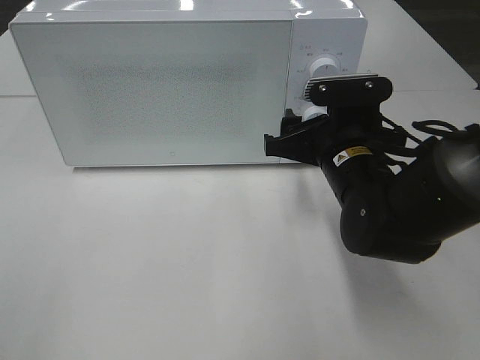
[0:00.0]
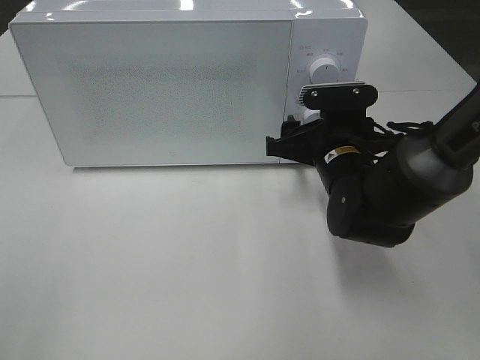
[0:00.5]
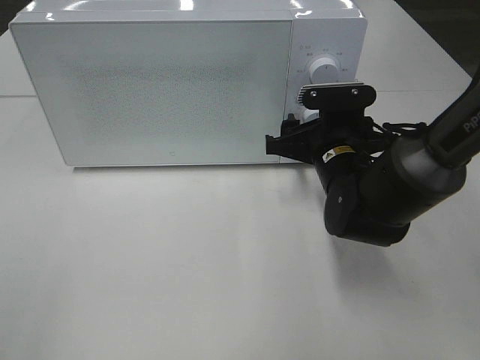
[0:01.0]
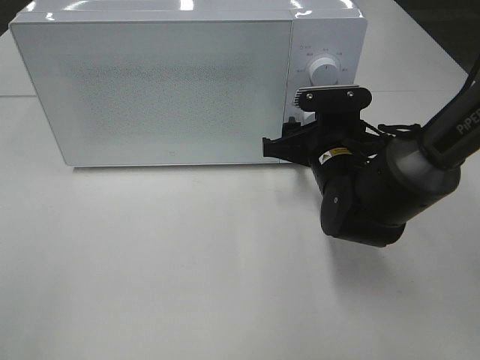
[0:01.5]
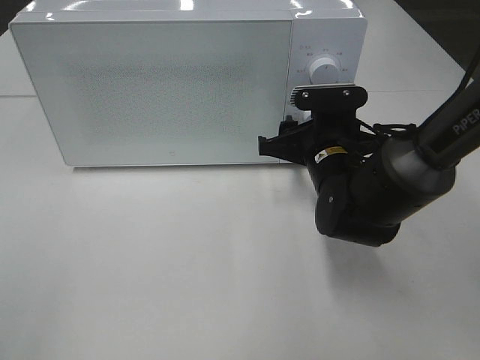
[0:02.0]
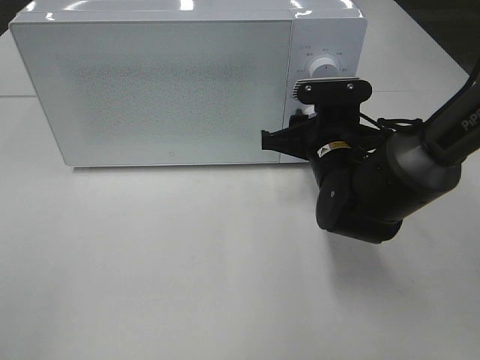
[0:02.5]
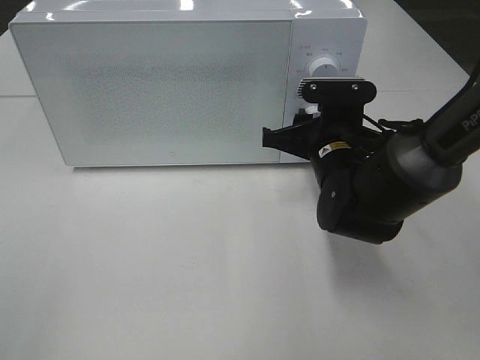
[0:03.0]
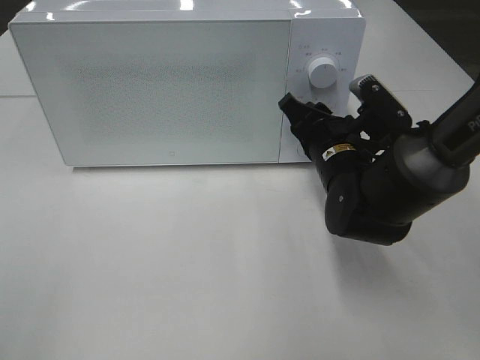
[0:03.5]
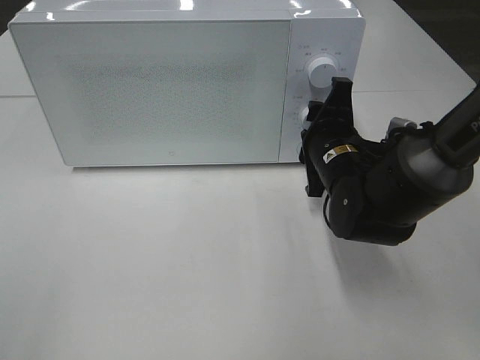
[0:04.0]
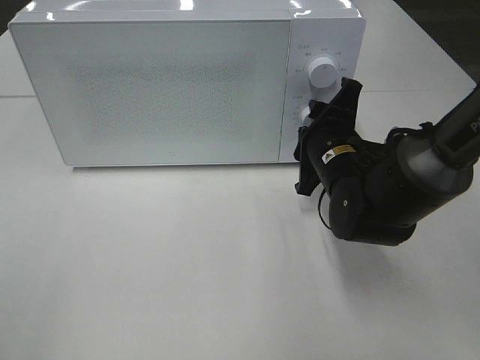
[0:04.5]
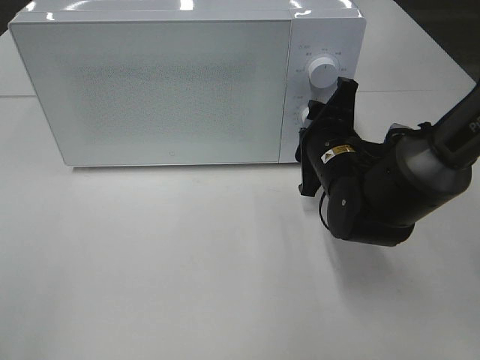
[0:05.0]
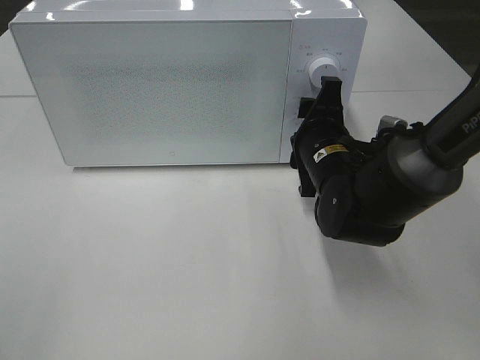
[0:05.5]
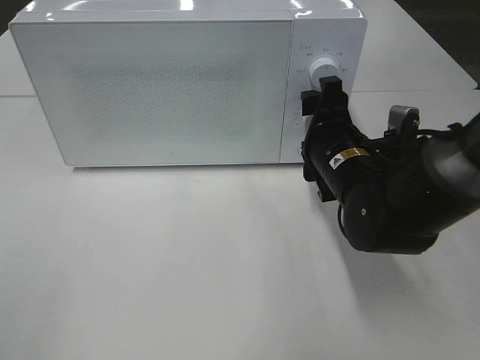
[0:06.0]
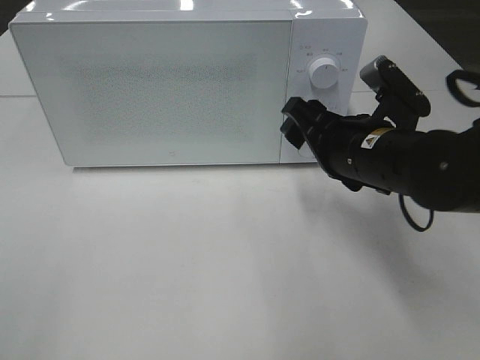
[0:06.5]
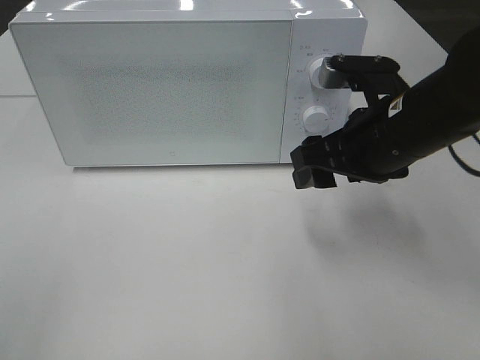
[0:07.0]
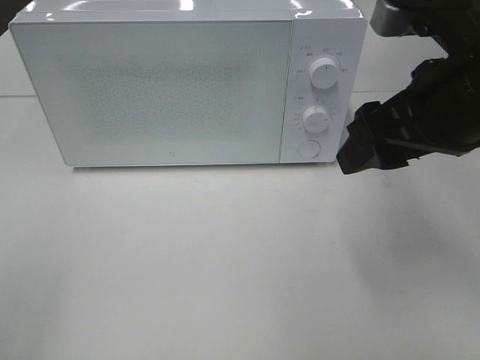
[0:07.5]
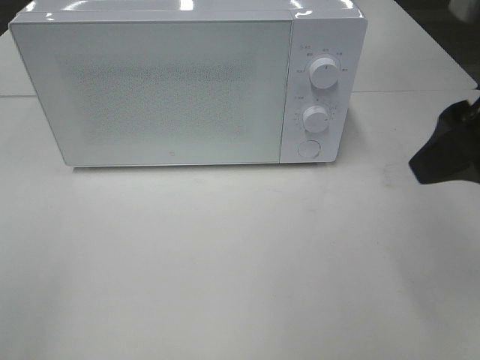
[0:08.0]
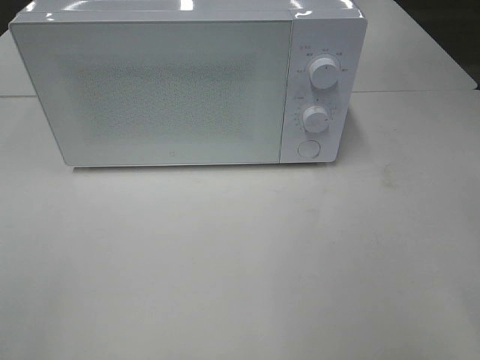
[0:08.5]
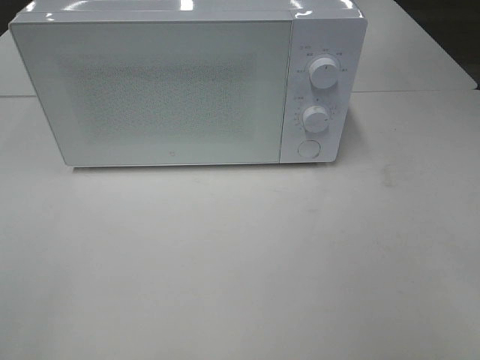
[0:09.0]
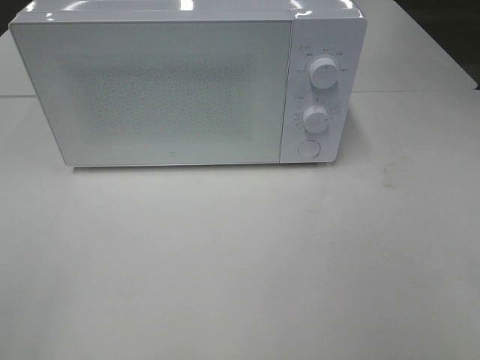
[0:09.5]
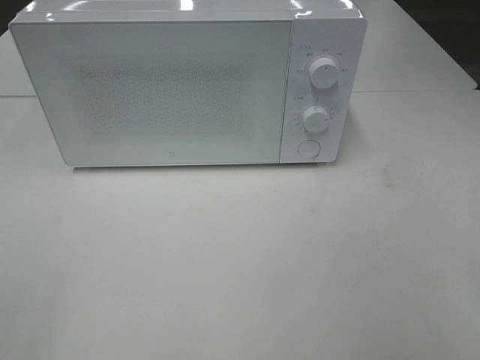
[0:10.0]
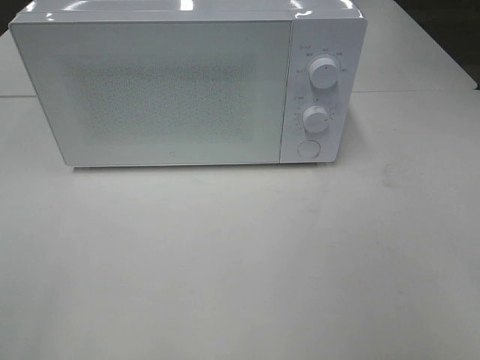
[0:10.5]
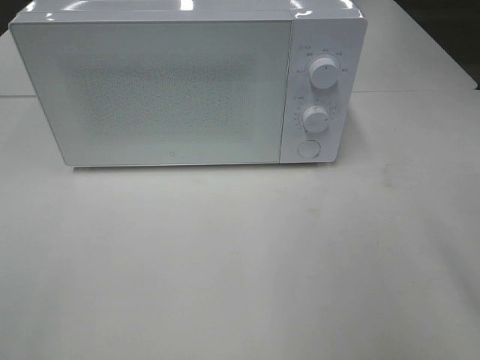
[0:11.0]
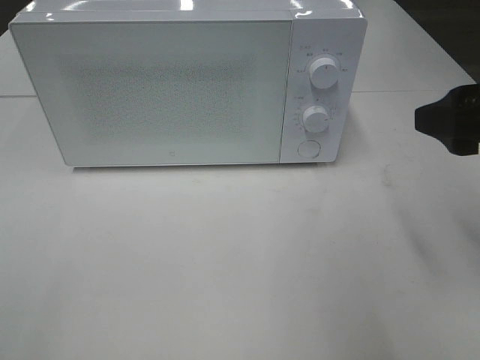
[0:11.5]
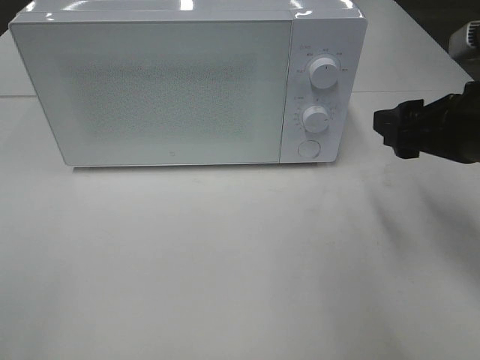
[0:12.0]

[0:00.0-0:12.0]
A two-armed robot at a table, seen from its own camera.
Task of the whole recording: Heat the burger.
Step, 0:00.0 to 0:05.5: Right hand: twist timer button.
0:00.0 to 0:02.0: The grippers move only a little.
0:04.0 to 0:06.0: The right gripper opens up.
0:06.0 to 0:08.0: The right gripper is displaced upward, backward and to the right by approximately 25 cm.
0:08.0 to 0:10.0: The right gripper travels backward and to the right by about 20 cm.
0:10.0 to 0:12.0: The right gripper travels forward by roughly 25 cm.

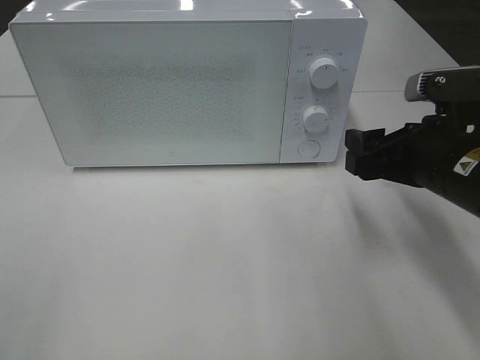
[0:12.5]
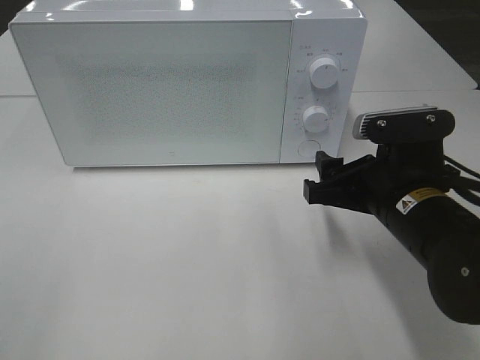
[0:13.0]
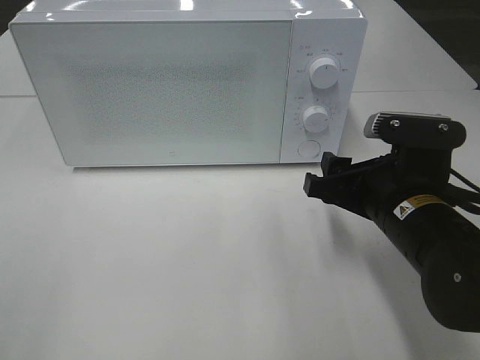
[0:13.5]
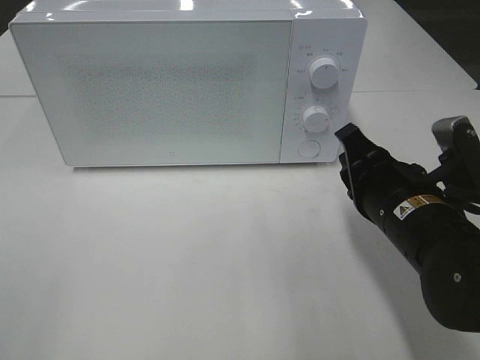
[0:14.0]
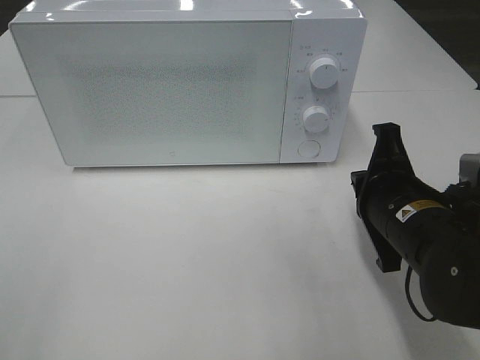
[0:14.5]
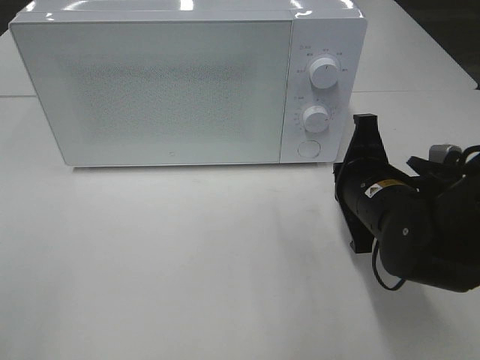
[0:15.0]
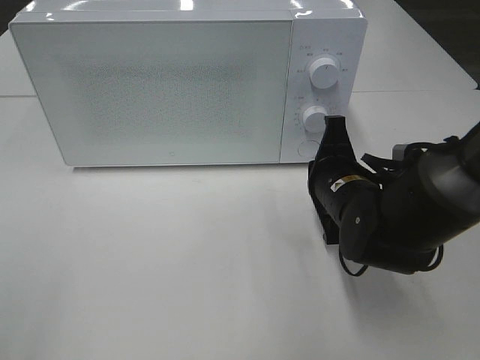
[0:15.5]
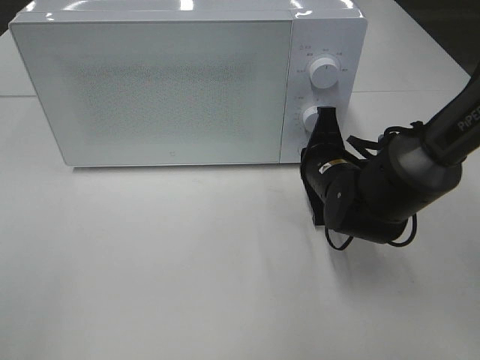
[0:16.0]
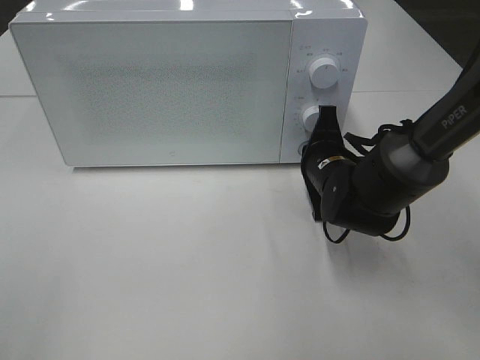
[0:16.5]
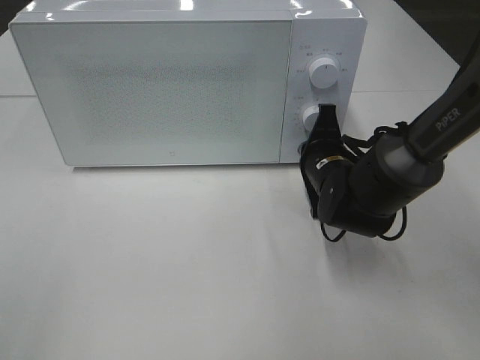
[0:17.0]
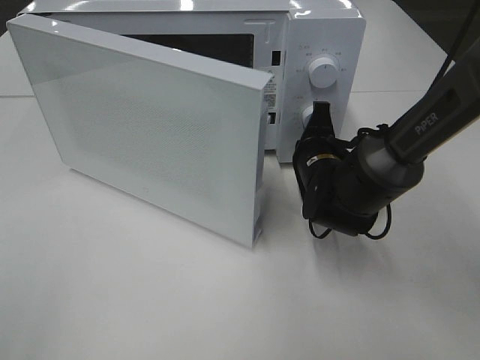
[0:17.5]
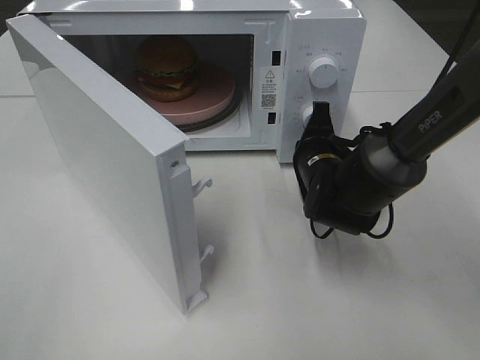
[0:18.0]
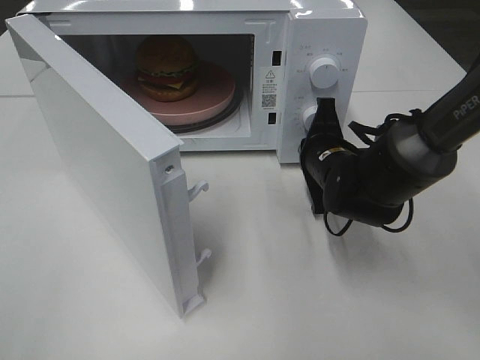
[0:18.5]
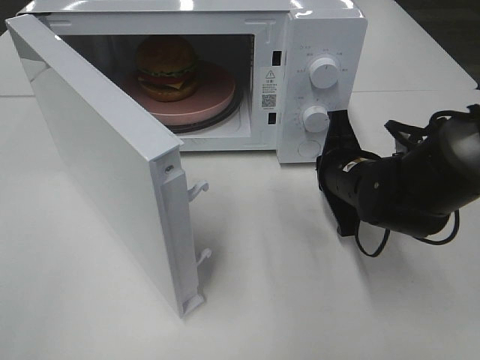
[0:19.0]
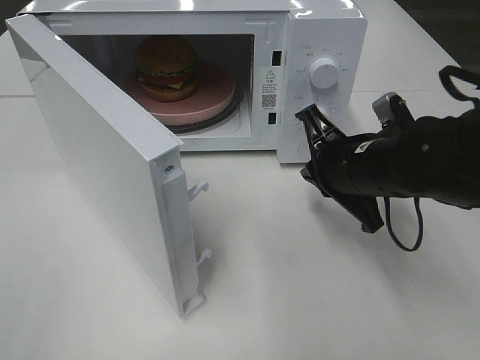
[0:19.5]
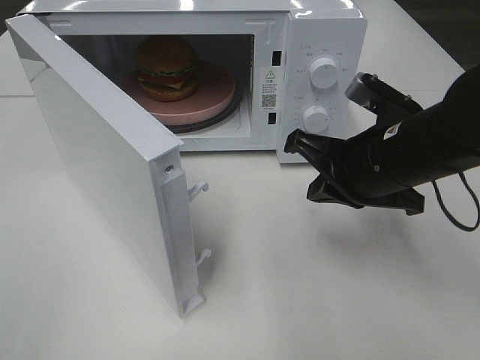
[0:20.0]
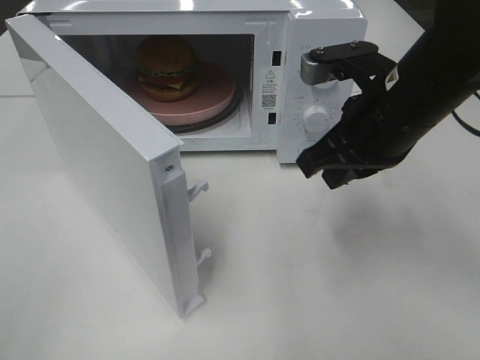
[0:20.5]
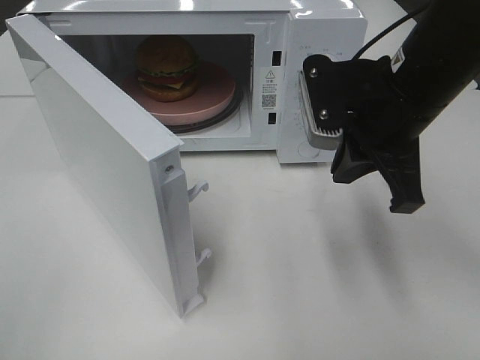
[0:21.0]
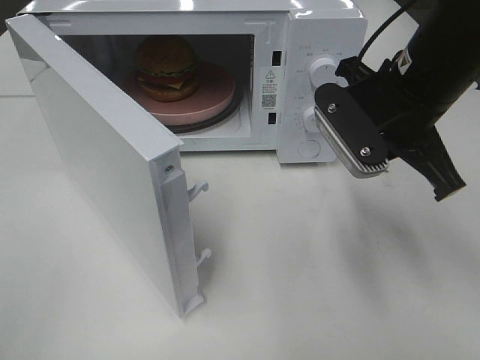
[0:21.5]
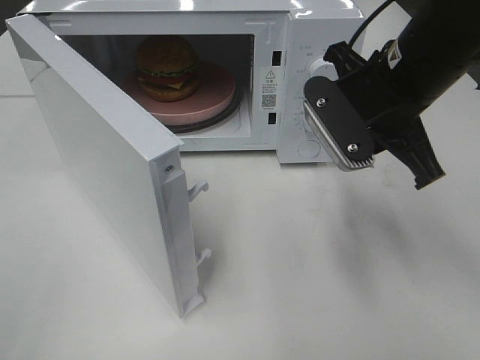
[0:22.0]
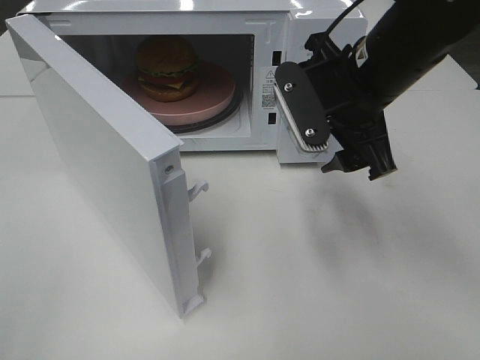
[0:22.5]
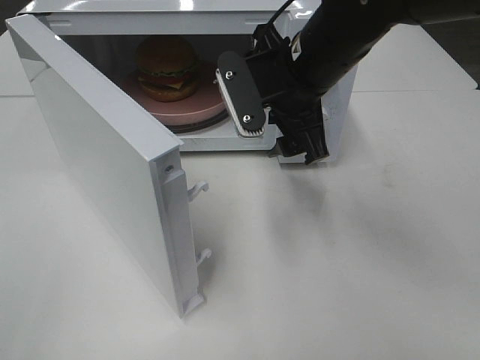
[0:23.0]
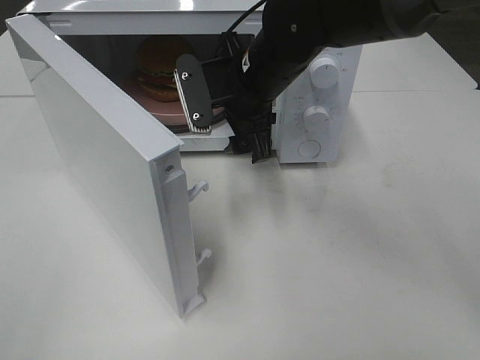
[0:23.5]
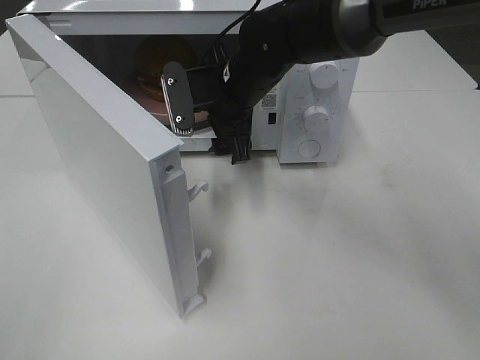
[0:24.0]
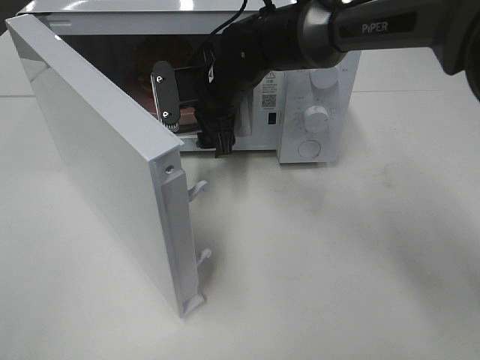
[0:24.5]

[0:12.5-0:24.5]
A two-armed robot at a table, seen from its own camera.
Task of the whole recording: Heat the burger.
Step, 0:12.5 to 0:18.5: Right hand: press the switch.
0:12.5 to 0:14.5: The right gripper moves about 5 cm, and closes its fingers.
0:14.5 to 0:16.5: The right gripper is displaced forward and downward by roughly 15 cm.
0:18.5 to 0:20.5: The right gripper moves upward and backward, some 15 cm.
0:20.5 to 0:22.5: The right gripper opens up.
0:22.5 to 0:24.5: The right gripper is displaced to the left, forward and downward by approximately 20 cm.

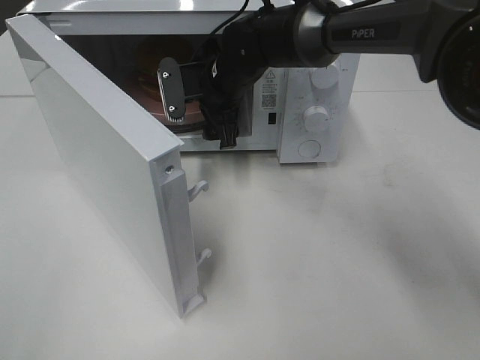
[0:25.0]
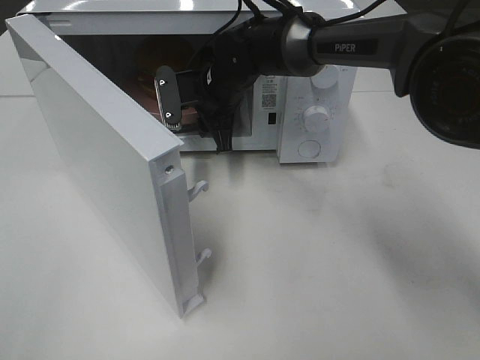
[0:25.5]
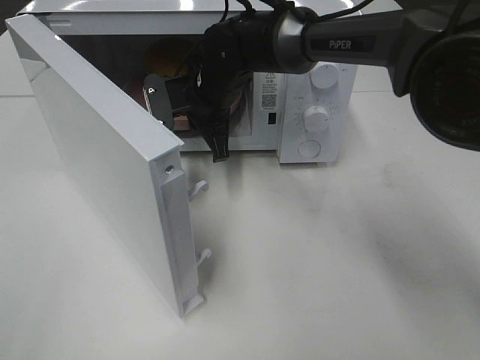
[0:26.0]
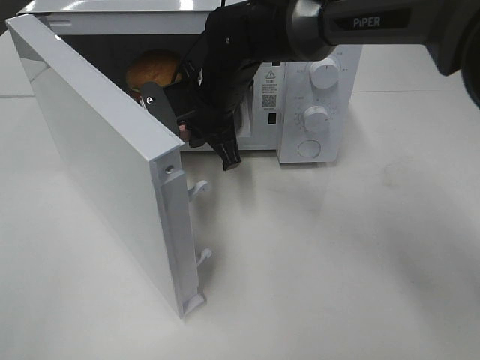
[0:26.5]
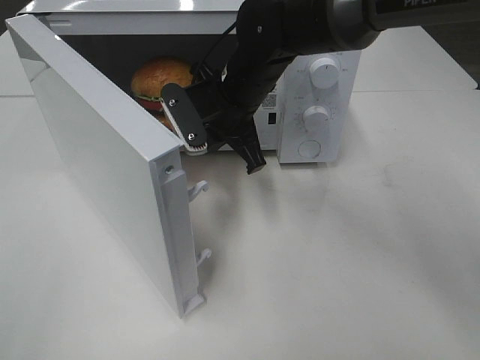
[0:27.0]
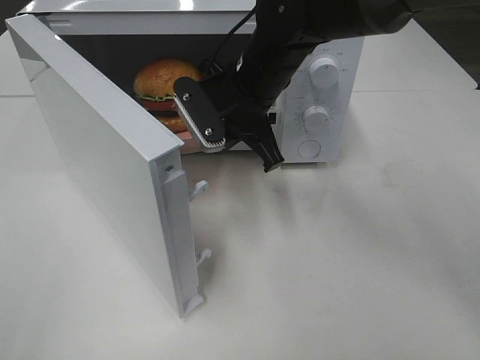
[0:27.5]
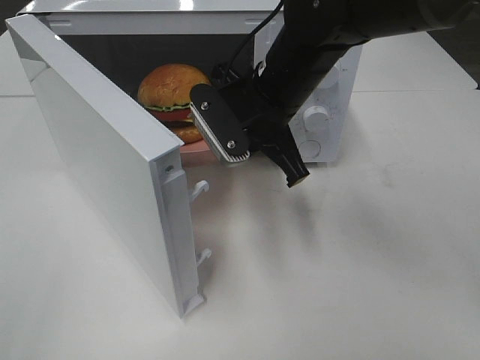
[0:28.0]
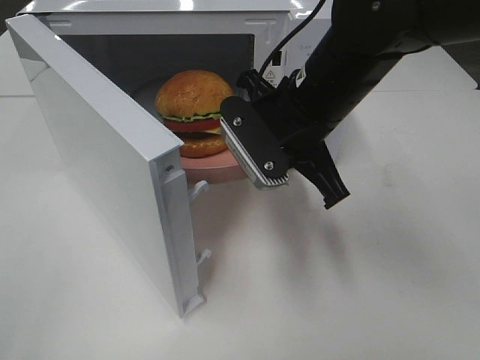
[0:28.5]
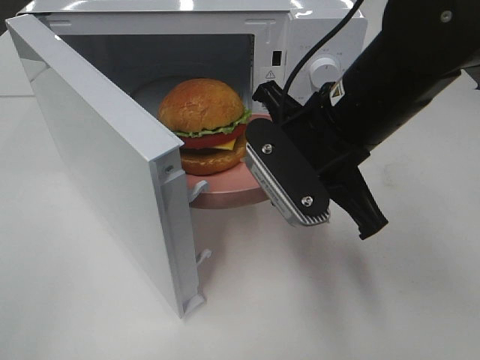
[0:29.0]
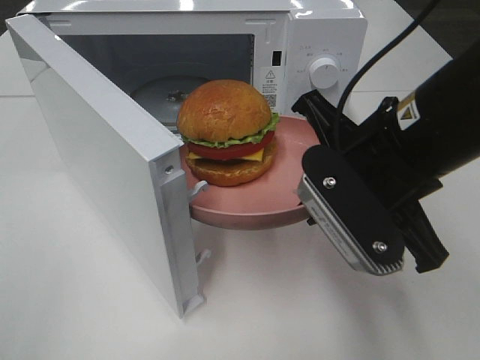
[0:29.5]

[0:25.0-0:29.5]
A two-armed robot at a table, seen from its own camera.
Task of the whole recording: Heat the burger.
0:25.0 to 0:27.0: The right gripper shifts roughly 5 cm backward, and closes.
0:27.0 to 0:29.5: The right gripper heads backward and to the right, covering about 20 cm.
